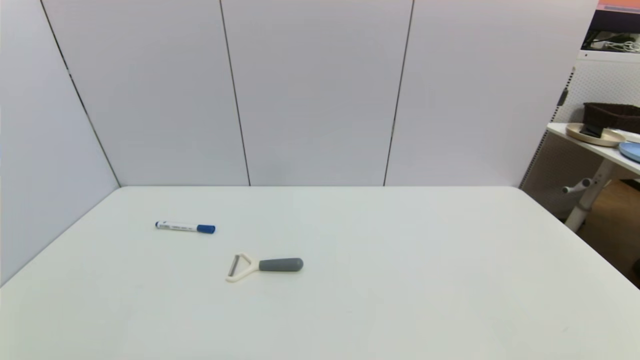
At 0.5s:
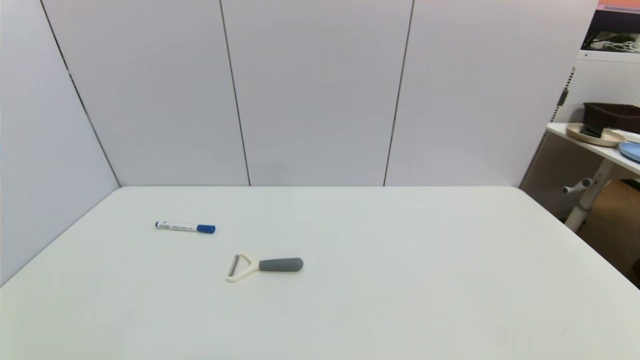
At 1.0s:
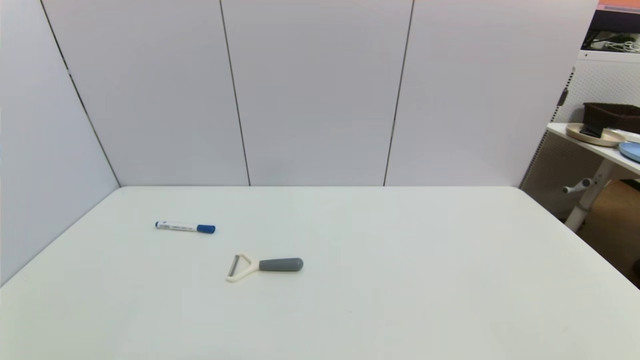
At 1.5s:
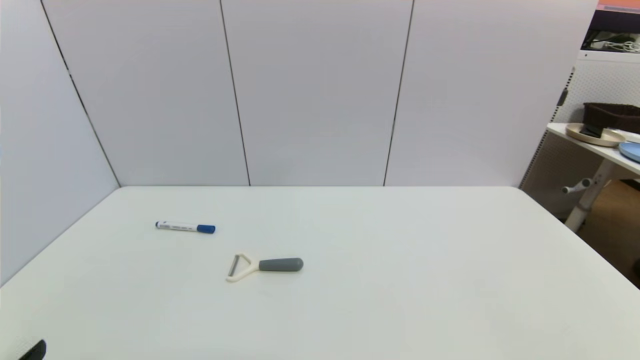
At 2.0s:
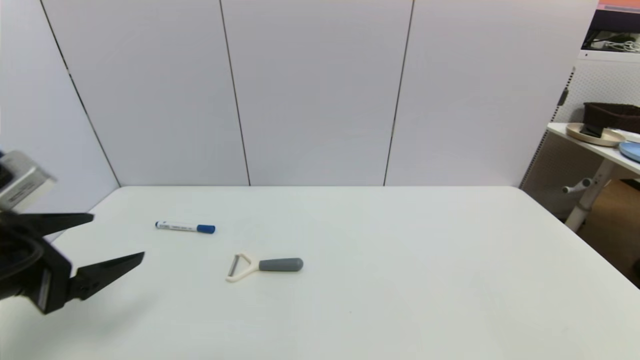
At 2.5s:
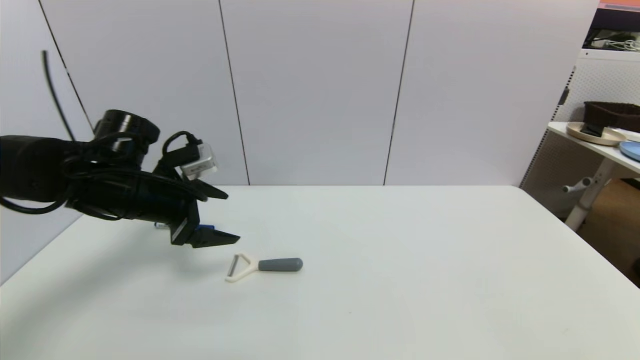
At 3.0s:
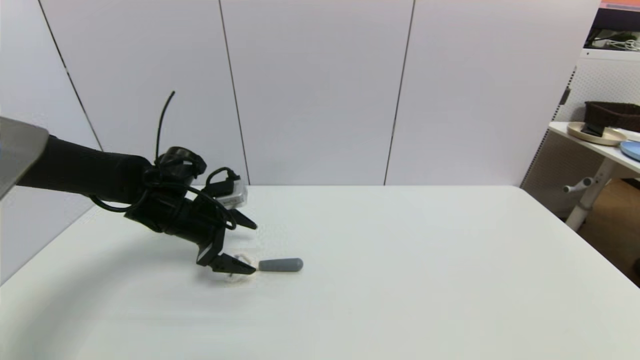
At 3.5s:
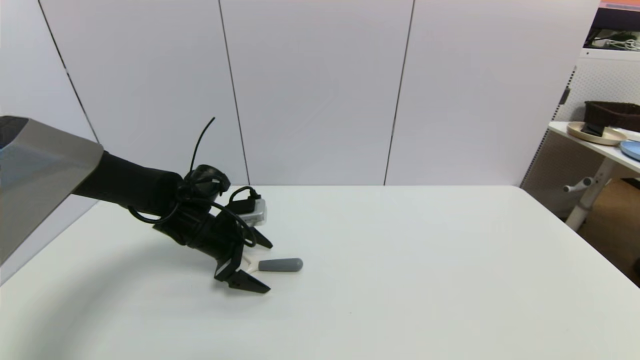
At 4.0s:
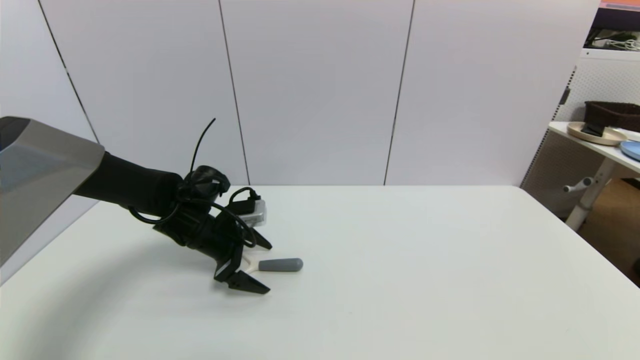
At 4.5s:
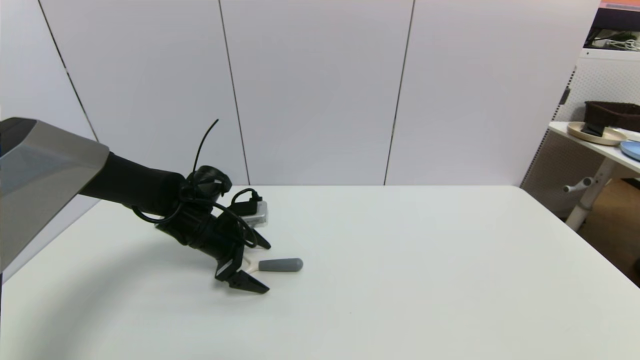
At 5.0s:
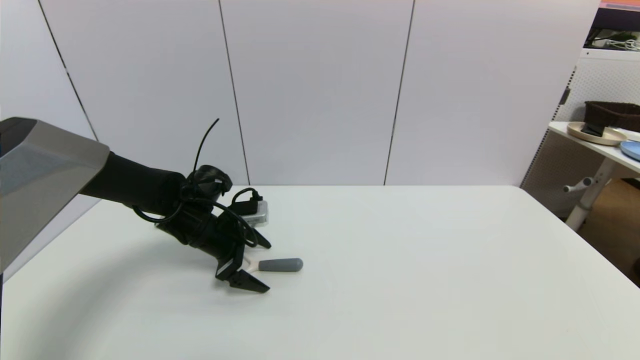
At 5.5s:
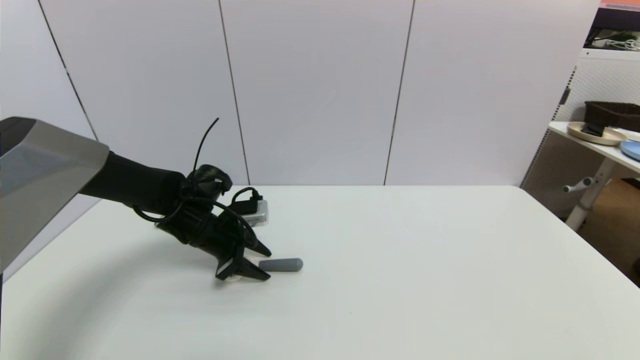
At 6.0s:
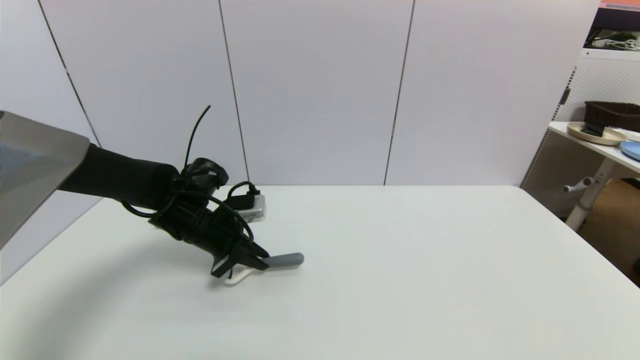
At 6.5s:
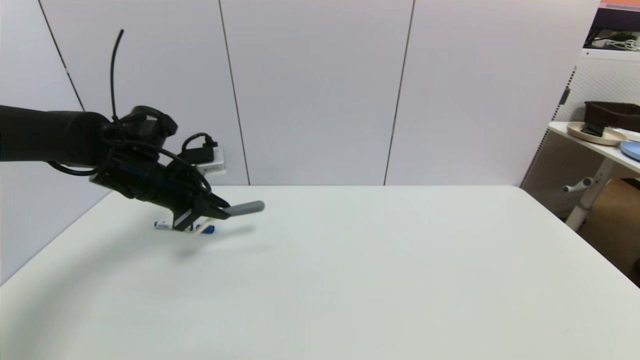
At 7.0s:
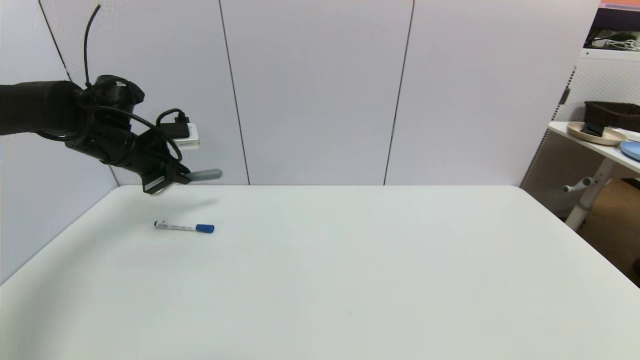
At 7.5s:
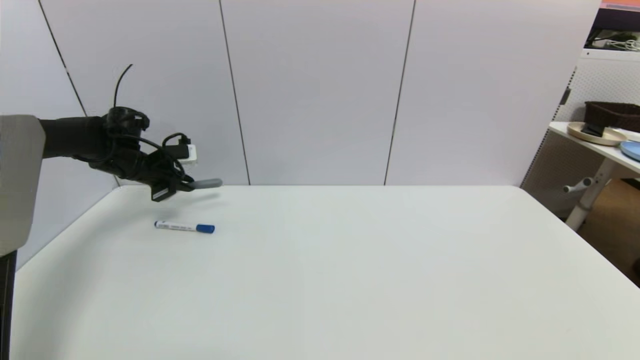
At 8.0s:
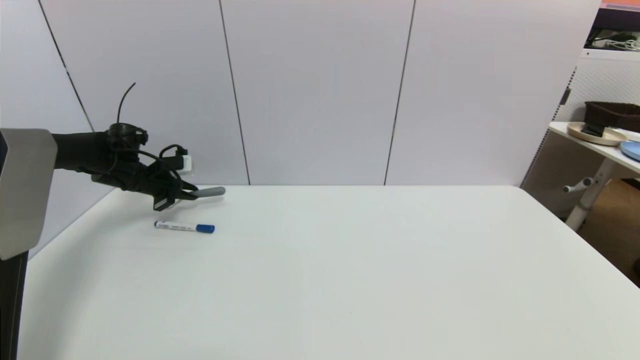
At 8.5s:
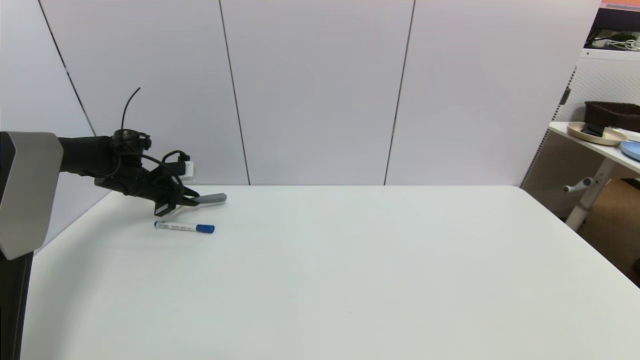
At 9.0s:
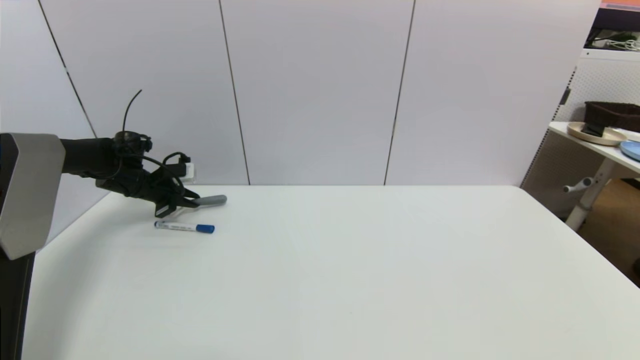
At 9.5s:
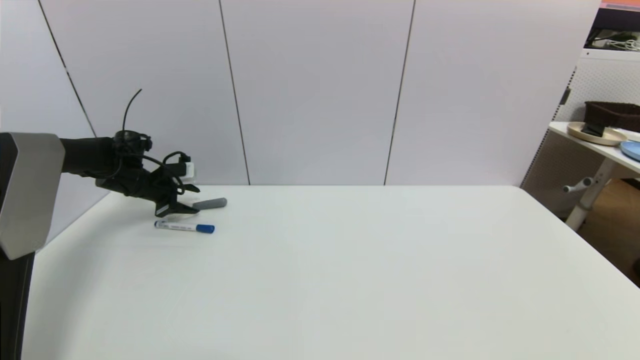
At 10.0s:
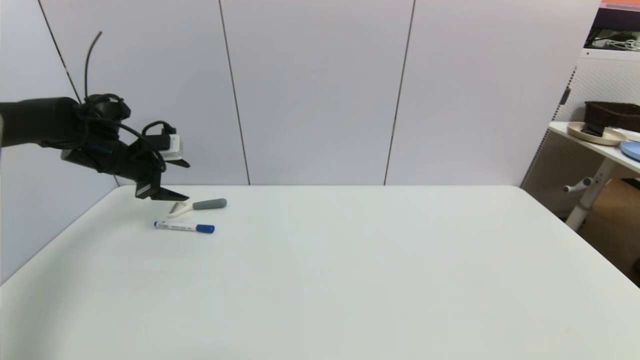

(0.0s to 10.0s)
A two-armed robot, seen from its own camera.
Step, 1.5s - 6.0s: Grasp the peeler with left gripper.
Step, 6.5s - 9.5s: Place the peeler on the table with left gripper.
0.0s - 2.0s: The left gripper shifts some 25 cm forward and upward.
2.0s - 4.0s: The left gripper moves forward, downward and to the right, some 25 cm.
4.0s - 6.0s: The left gripper closes up.
6.0s - 8.0s: The left gripper is displaced to the left and forward by approximately 20 cm.
8.0s - 10.0s: The left gripper shifts about 5 cm upward, and opens.

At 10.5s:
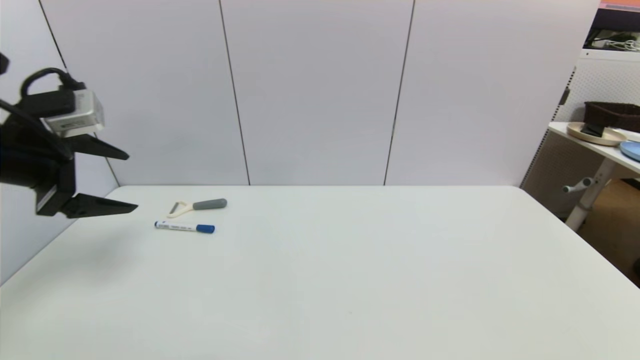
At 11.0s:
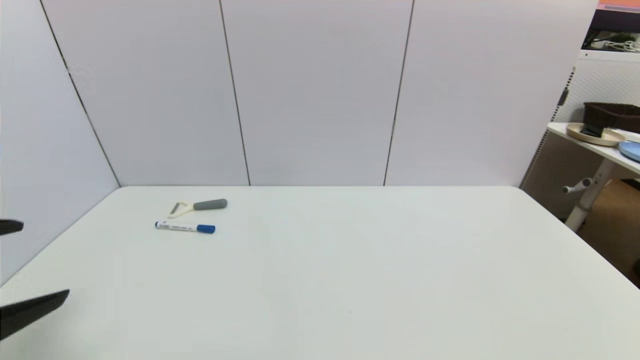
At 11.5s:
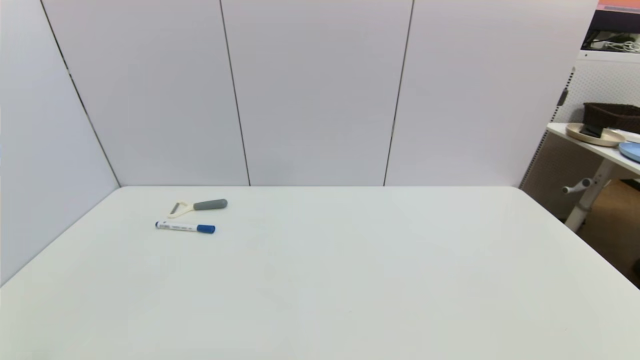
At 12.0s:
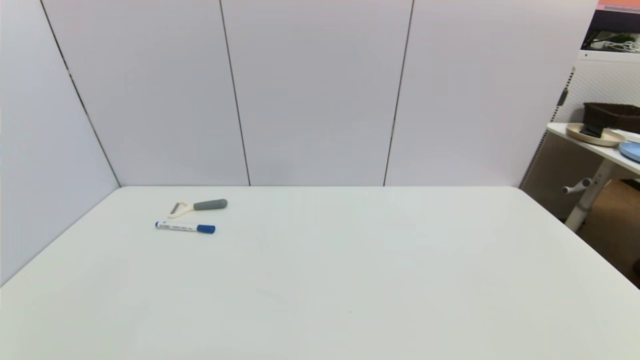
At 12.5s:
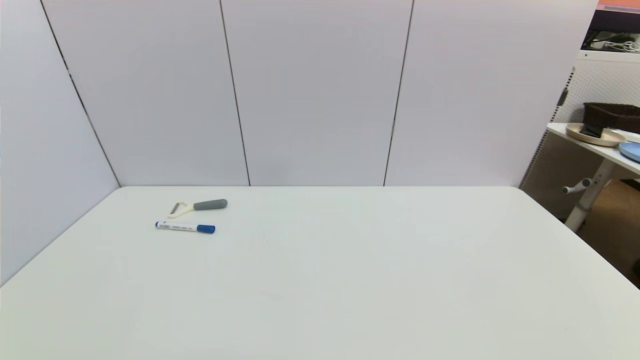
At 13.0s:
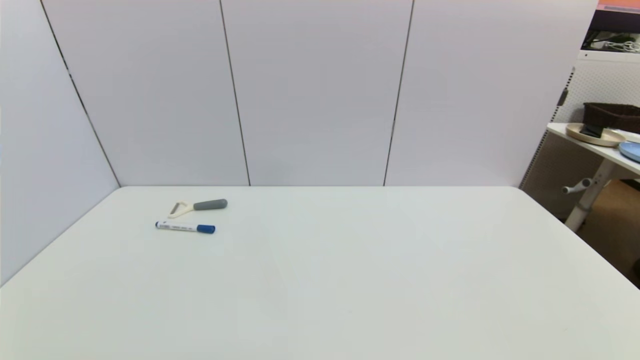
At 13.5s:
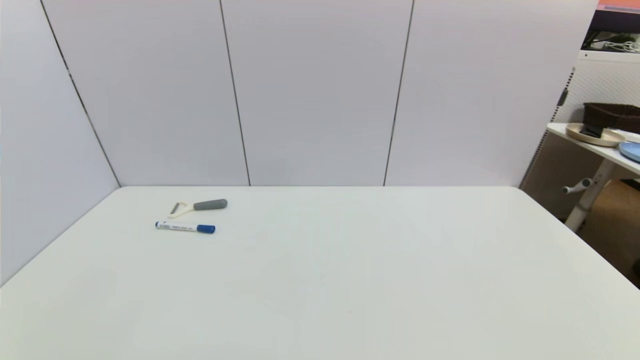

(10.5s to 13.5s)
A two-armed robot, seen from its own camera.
10.5s - 12.0s: The left gripper is displaced backward and downward by approximately 35 cm.

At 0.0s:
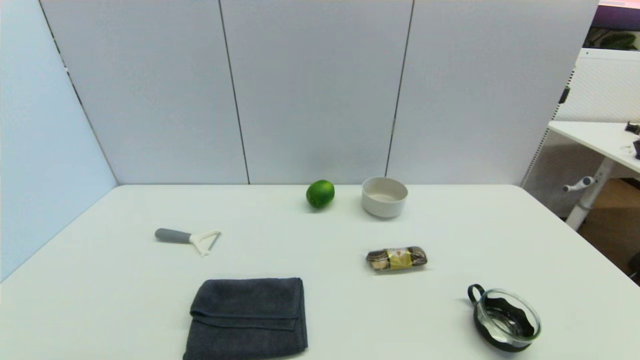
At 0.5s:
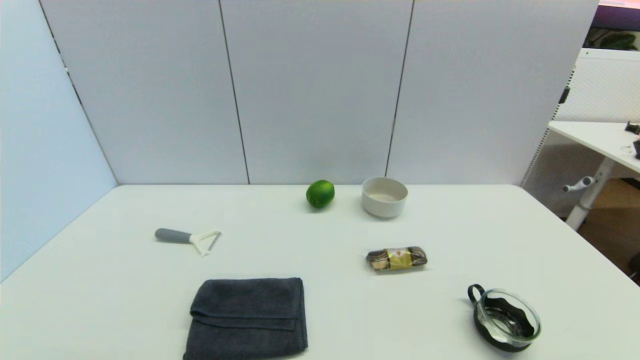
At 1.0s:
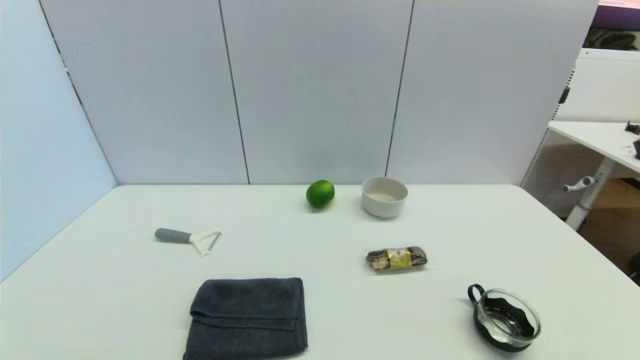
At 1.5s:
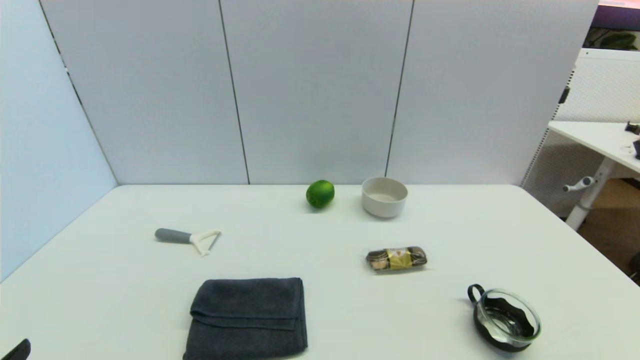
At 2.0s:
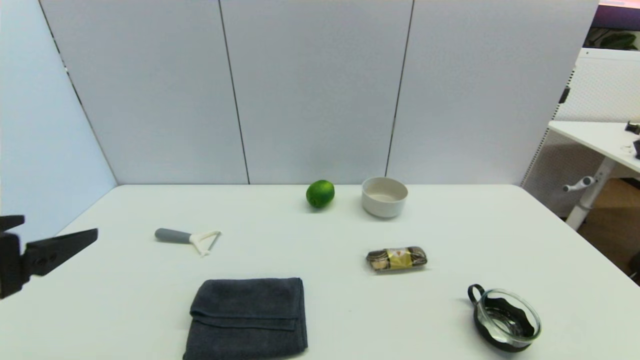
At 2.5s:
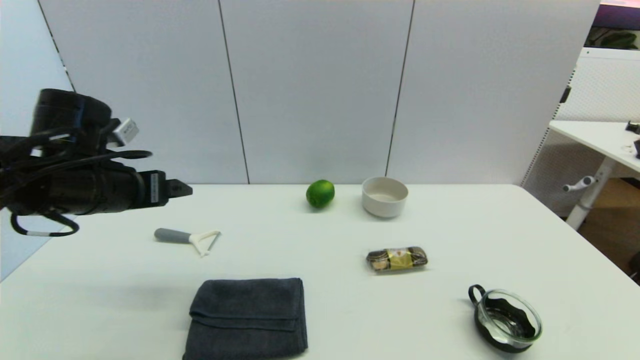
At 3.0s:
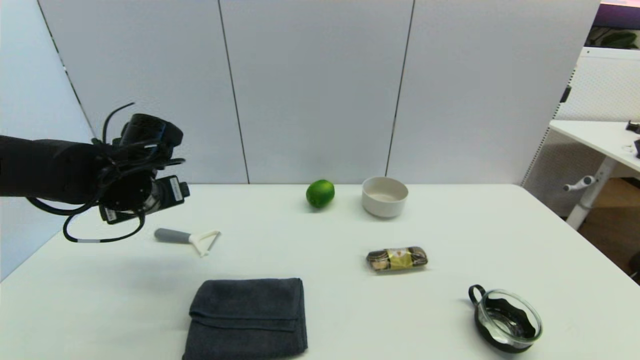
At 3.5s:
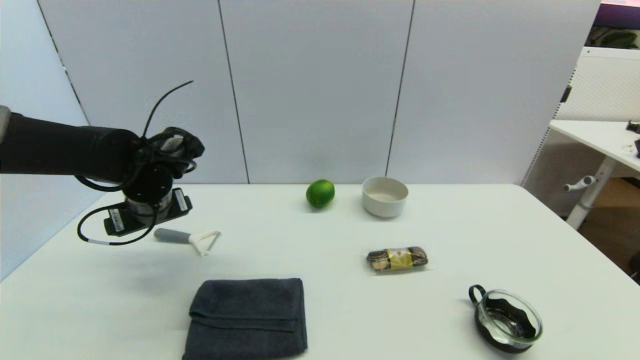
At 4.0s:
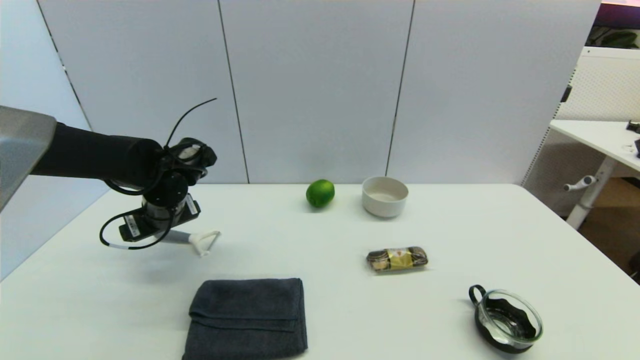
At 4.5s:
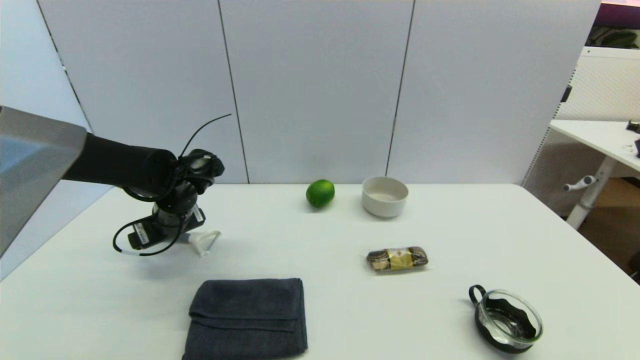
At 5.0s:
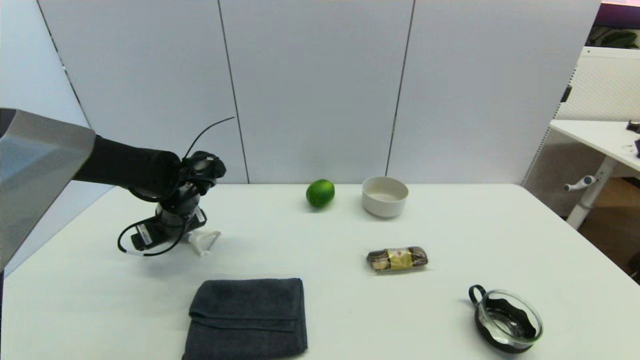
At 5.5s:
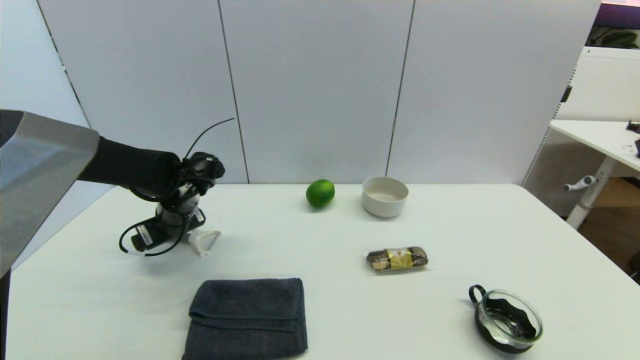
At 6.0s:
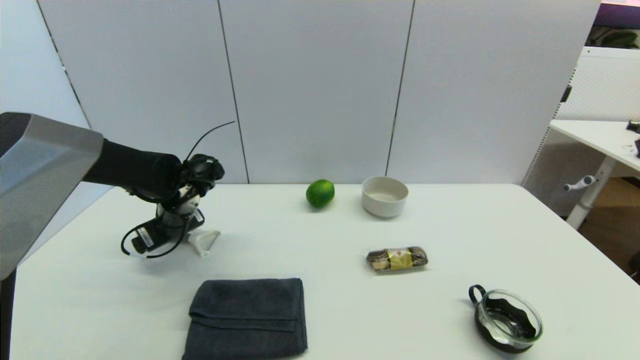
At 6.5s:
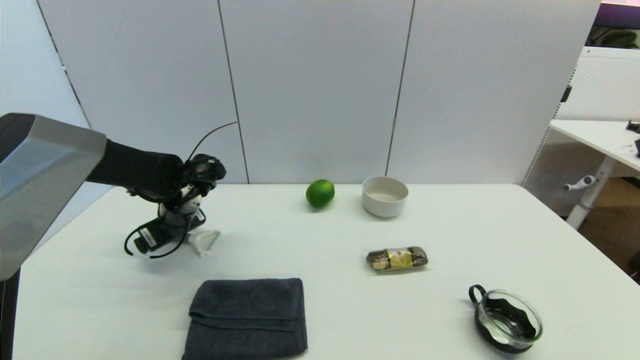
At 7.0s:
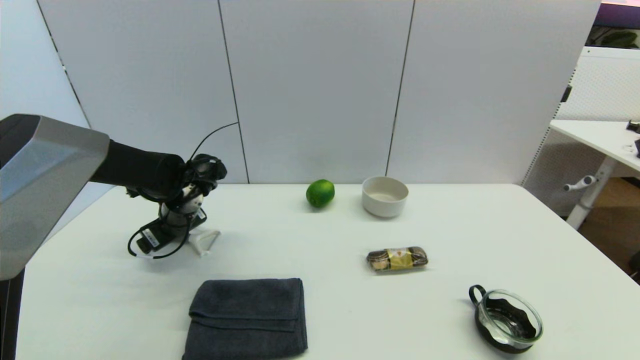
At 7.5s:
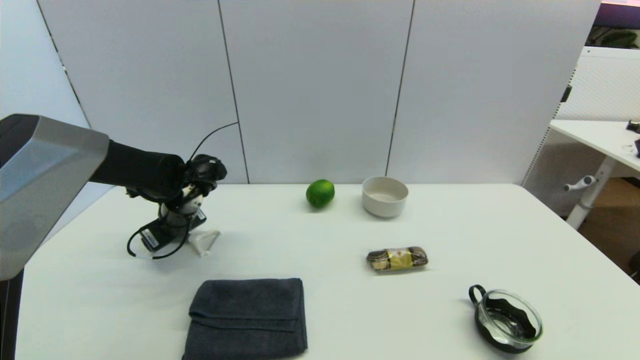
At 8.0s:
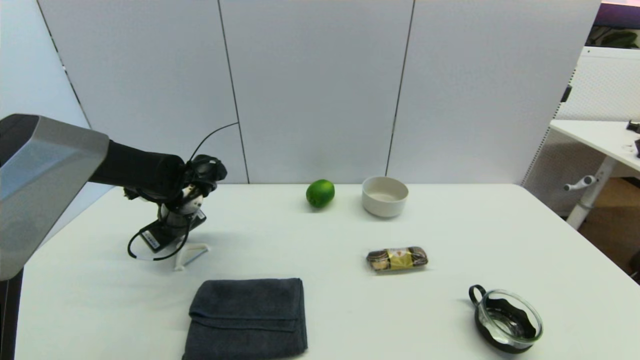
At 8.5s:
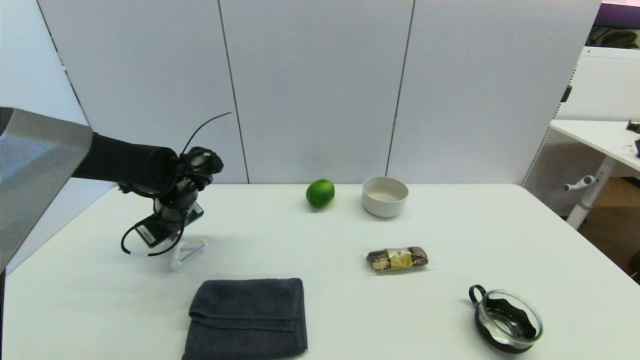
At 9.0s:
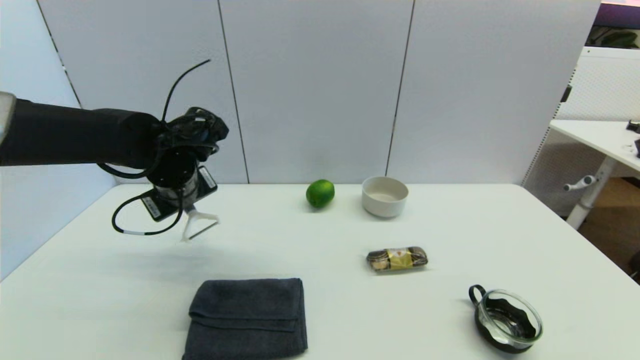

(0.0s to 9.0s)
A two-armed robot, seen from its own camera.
Step, 2.0s - 8.5s: Grasp the peeler with left gripper.
0.0s - 2.0s: The left gripper goes roughly 20 cm upward and forward.
2.0s - 4.5s: The left gripper is displaced forward and downward by some 30 cm.
4.5s - 7.0s: The grippers move only a little.
7.0s - 9.0s: The left gripper shifts approximately 10 cm upward, and closes.
